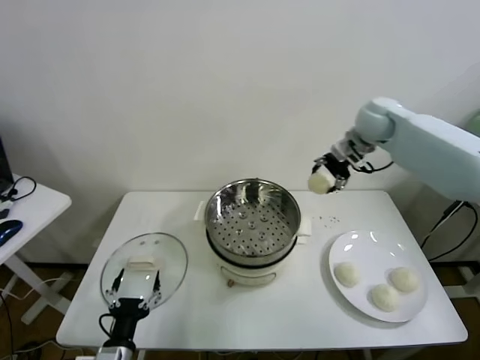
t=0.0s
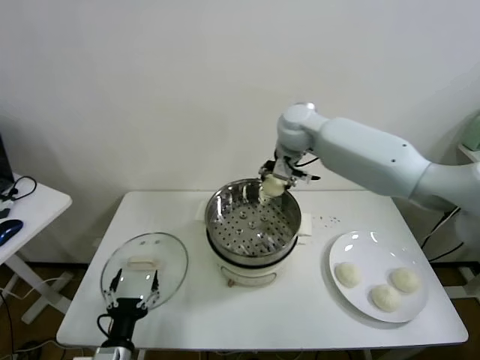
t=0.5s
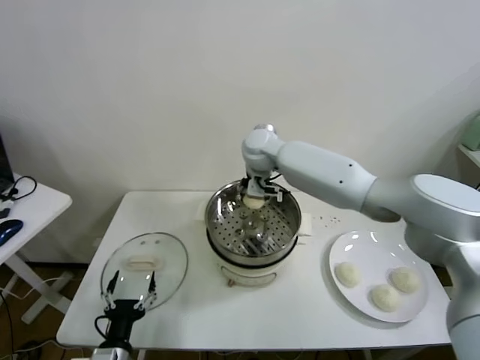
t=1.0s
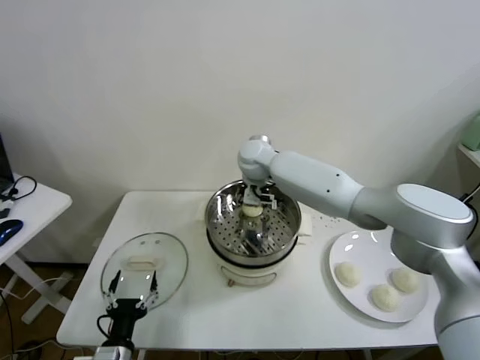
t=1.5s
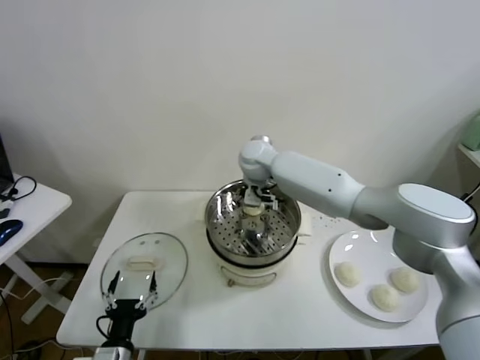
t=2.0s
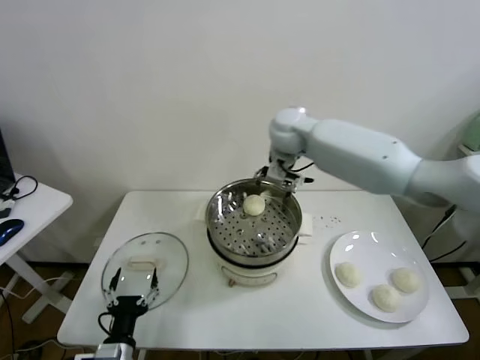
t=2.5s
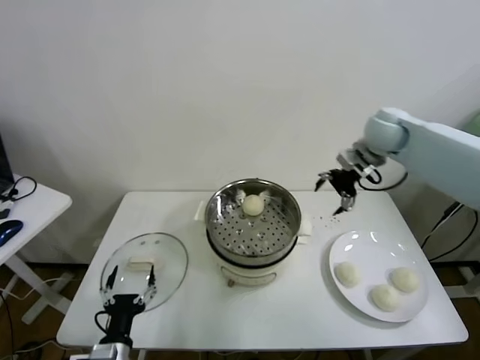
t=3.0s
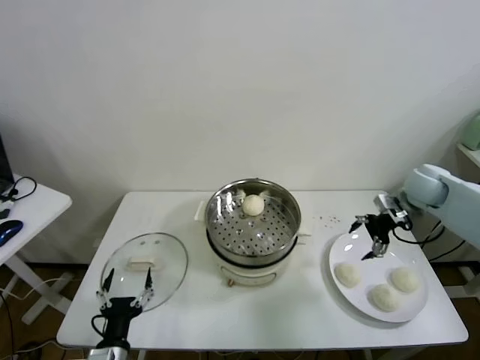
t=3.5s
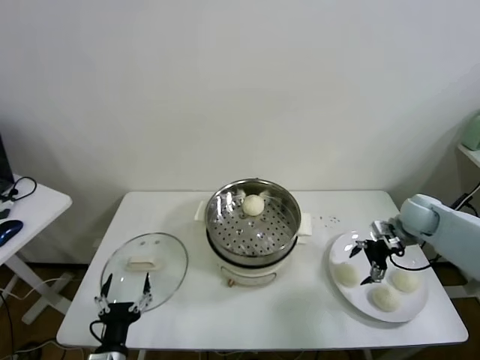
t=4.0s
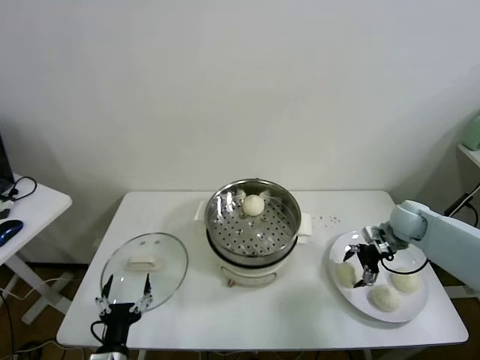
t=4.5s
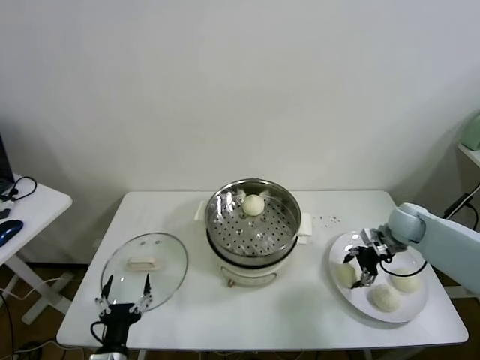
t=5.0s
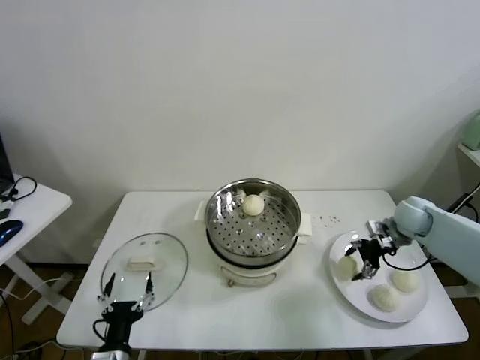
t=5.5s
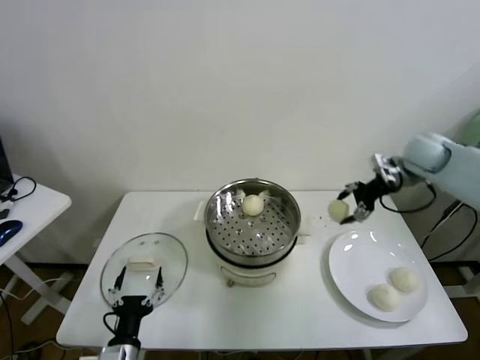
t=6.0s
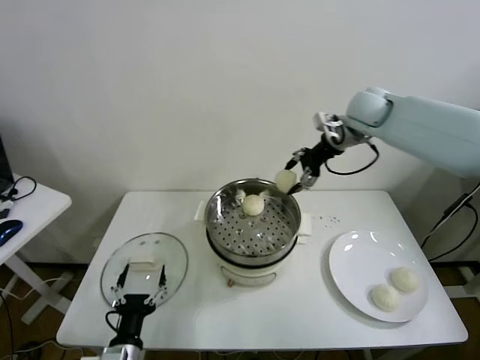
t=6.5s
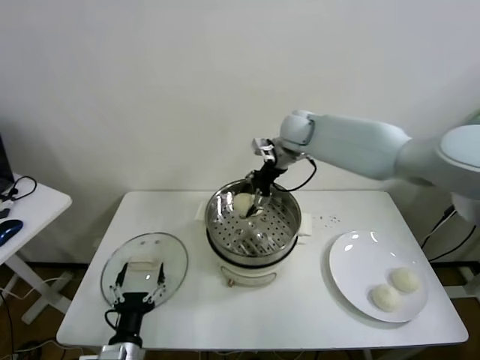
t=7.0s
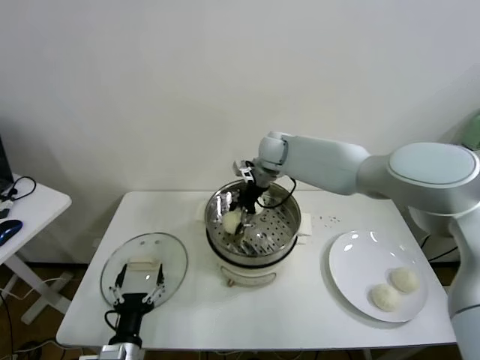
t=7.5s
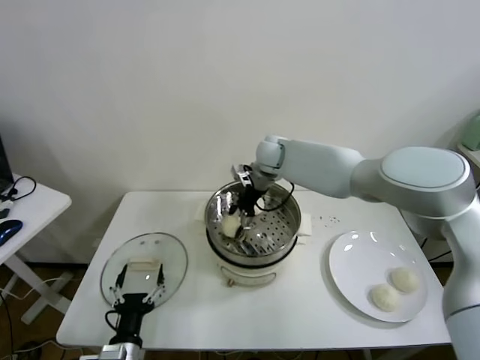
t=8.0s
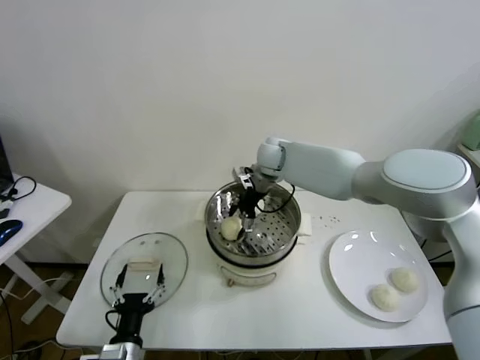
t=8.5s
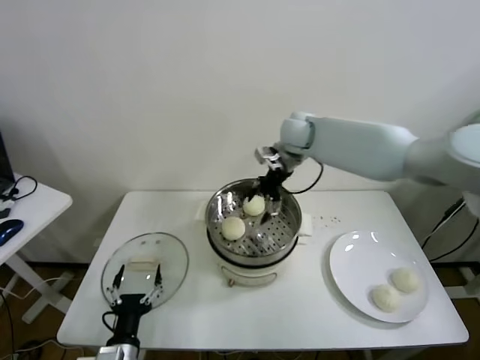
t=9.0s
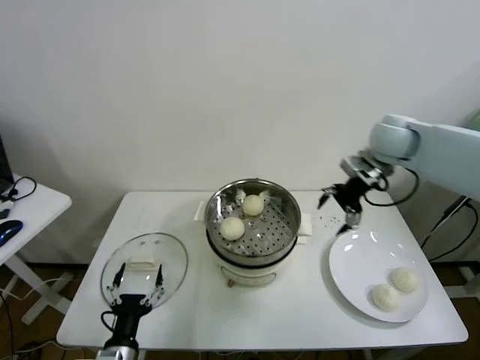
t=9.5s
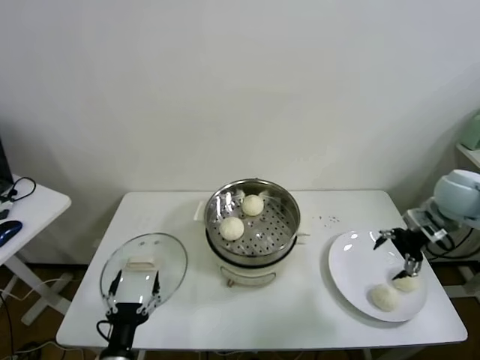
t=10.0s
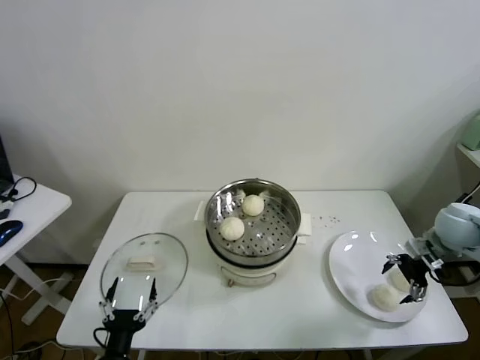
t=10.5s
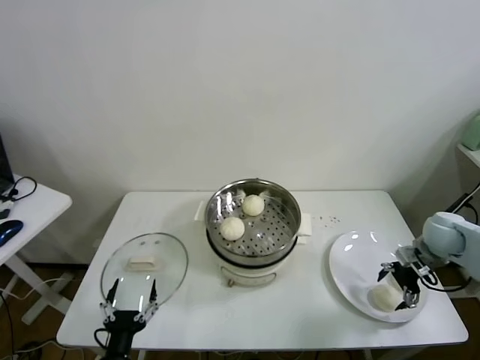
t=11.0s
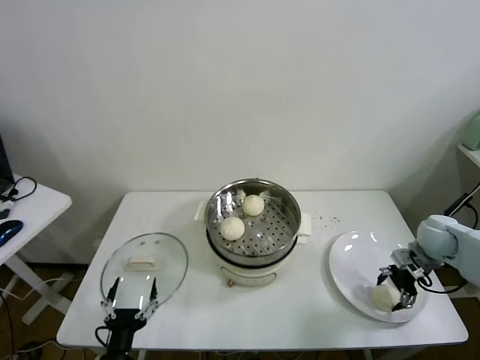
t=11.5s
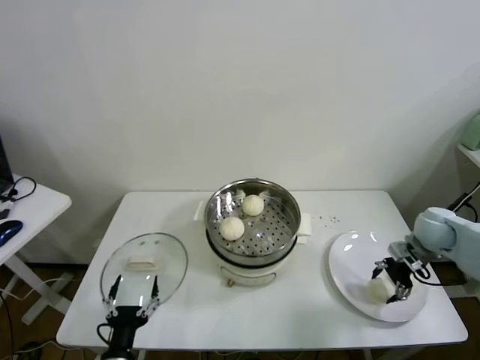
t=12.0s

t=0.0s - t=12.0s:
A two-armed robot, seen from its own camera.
Task of the whole recording: take steamed baozi put them in steamer.
Step, t=0.0s - t=2.0s: Place the baozi on the steamer with right gripper.
Step, t=2.5s - t=4.5s: Grasp the baozi in the plate with right gripper.
Step, t=5.5s - t=8.0s: Place the baozi on the steamer with right gripper.
Step, t=9.0s - t=11.5s: Grasp the baozi in the plate with right gripper.
t=0.0s - t=2.0s: The right gripper moves to the left and downward, some 25 cm.
t=2.0s - t=4.0s: The right gripper goes roughly 40 cm to the right.
t=4.0s - t=6.0s: The right gripper heads upward, covering about 20 cm.
t=6.0s - t=8.0s: The right gripper goes approximately 30 cm to the left.
t=8.0s - t=10.0s: The right gripper heads to the right and backward, covering some 40 cm.
t=10.0s - t=12.0s: The right gripper travels downward by some 10 cm.

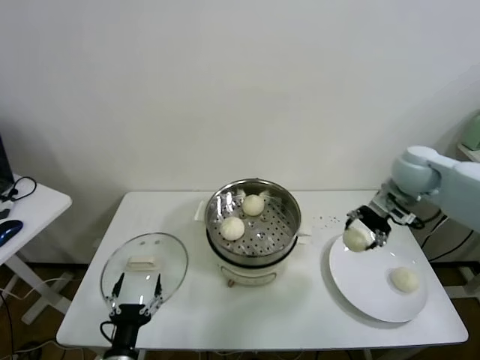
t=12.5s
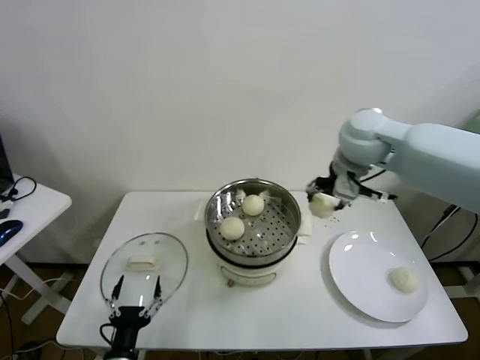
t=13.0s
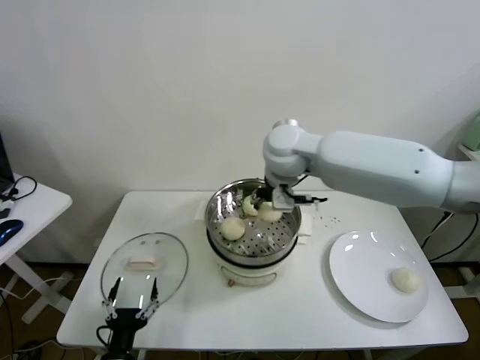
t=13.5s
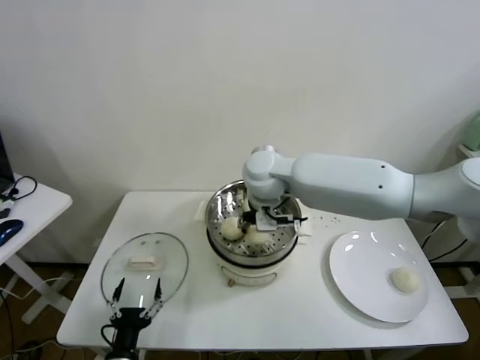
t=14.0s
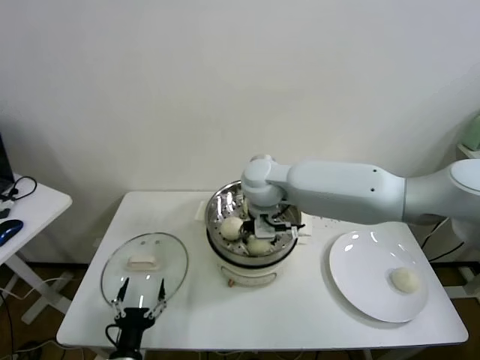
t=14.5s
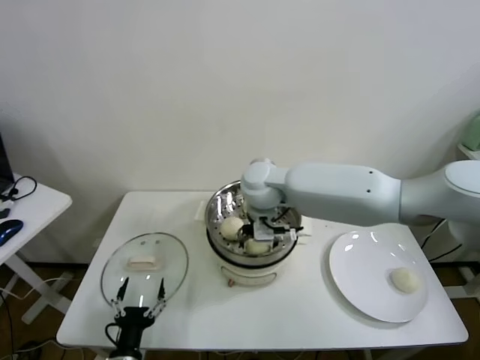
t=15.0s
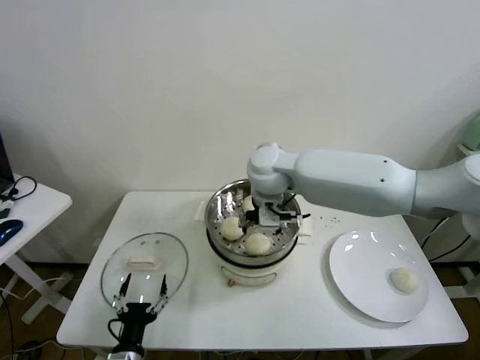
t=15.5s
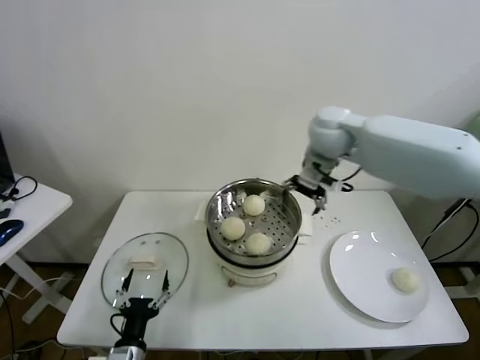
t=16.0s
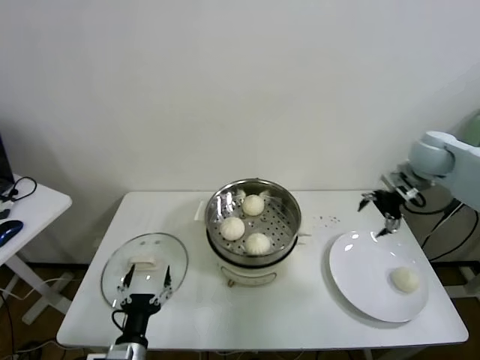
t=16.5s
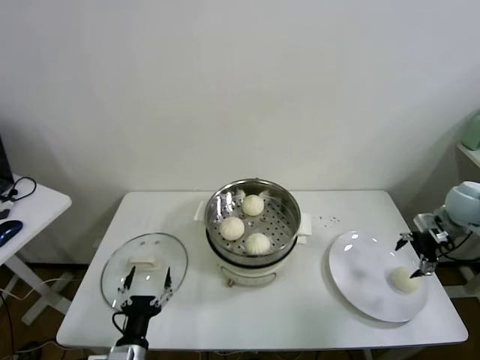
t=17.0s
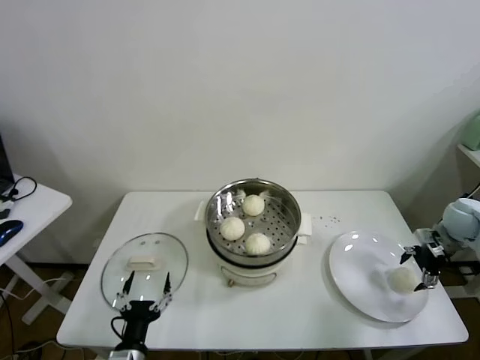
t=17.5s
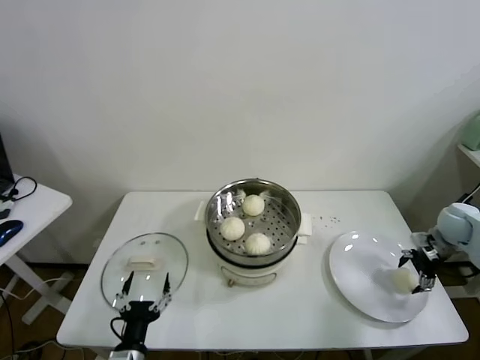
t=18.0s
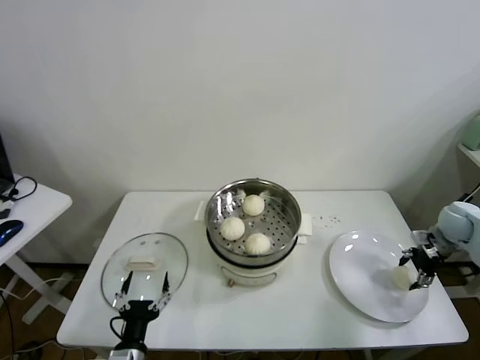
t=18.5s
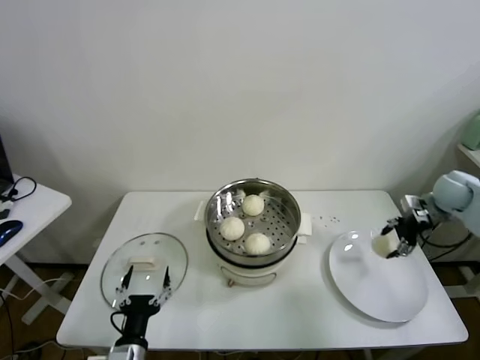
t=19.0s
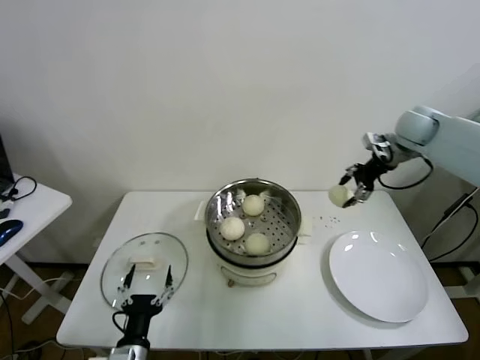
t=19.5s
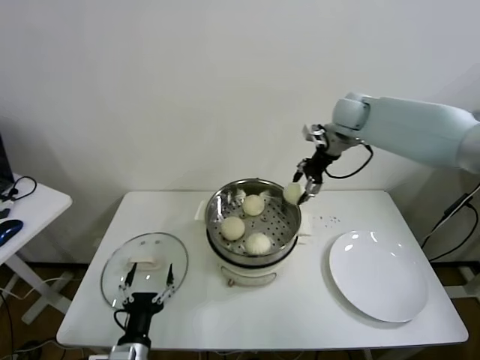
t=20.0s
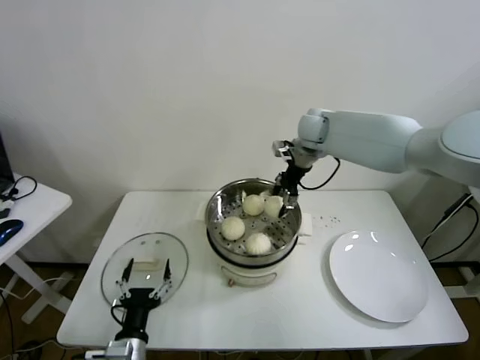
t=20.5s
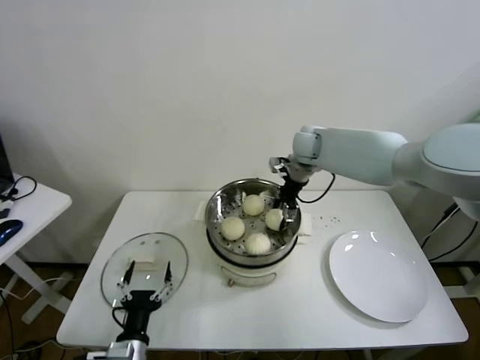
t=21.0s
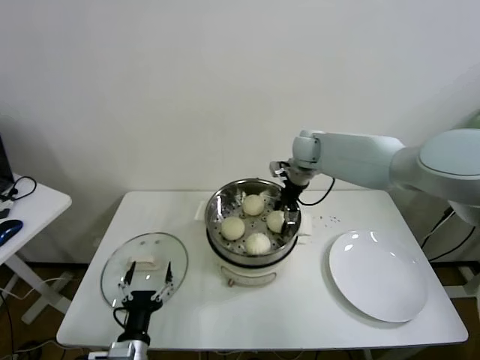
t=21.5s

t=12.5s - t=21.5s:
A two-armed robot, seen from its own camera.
Task of the whole recording: take steamed baozi put them in steamer.
Step, t=12.5s - t=15.0s: Place the baozi on the steamer with right gripper.
Step, t=15.5s - t=18.0s: Grasp the baozi in the plate with right gripper.
t=12.5s - t=14.5s: The right gripper shifts approximately 30 cm to the left.
t=14.5s - t=17.0s: The right gripper shifts approximately 50 cm to the right.
t=17.0s - t=19.5s: The right gripper goes approximately 20 cm upward, to the left and forward.
t=19.5s - t=21.5s: The right gripper goes about 25 cm to the left.

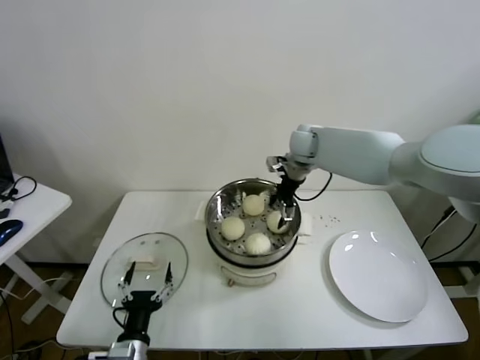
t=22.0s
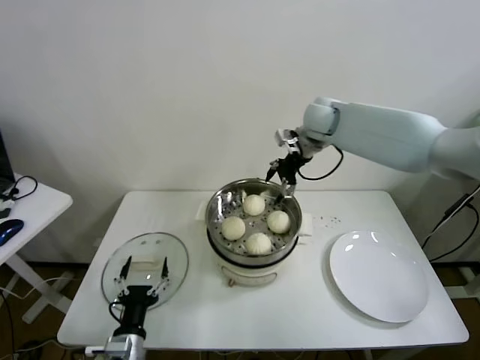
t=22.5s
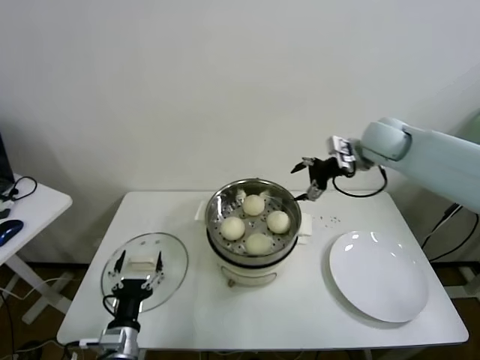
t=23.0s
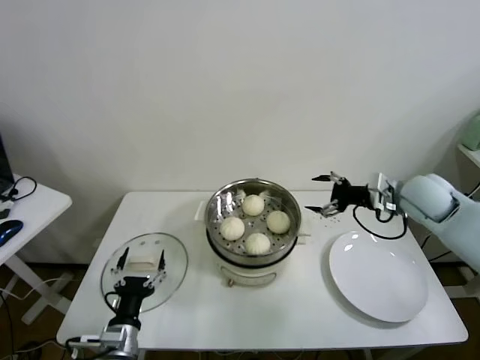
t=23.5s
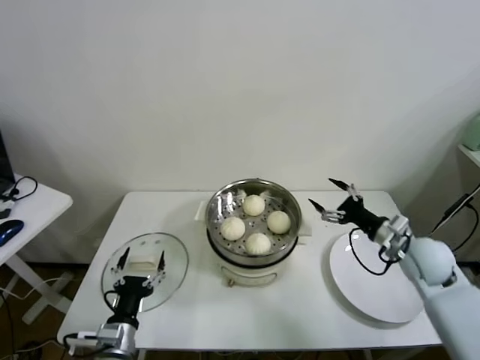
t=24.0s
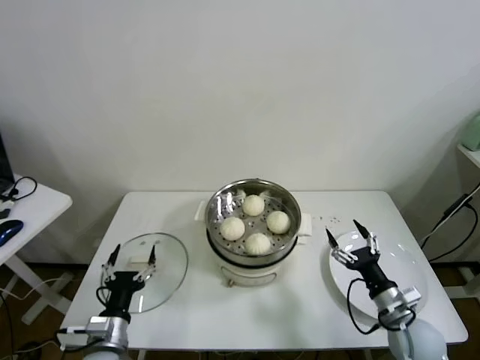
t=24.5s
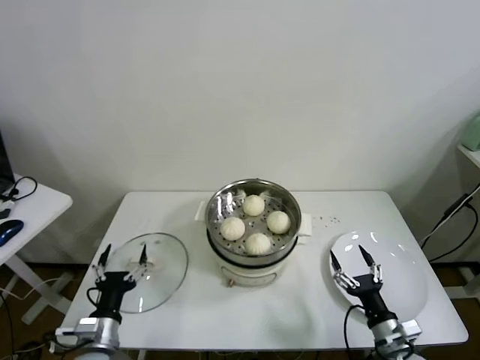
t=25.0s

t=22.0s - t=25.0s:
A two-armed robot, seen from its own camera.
Task of the whole recording: take steamed baozi put them in steamer.
t=22.0s - t=23.5s: The right gripper moves to the right and backward, some 25 cm.
t=23.5s - t=25.0s: The right gripper goes roughly 35 cm backward and downward.
